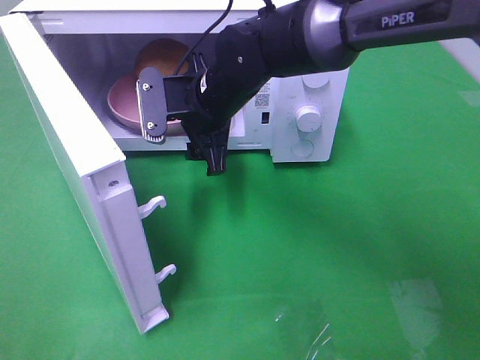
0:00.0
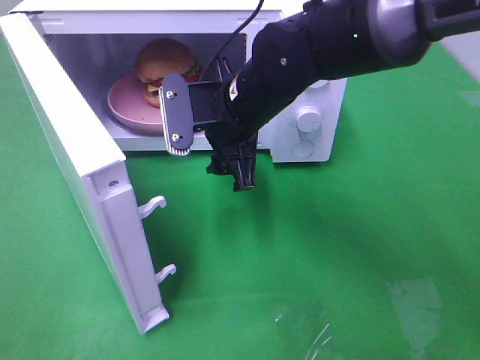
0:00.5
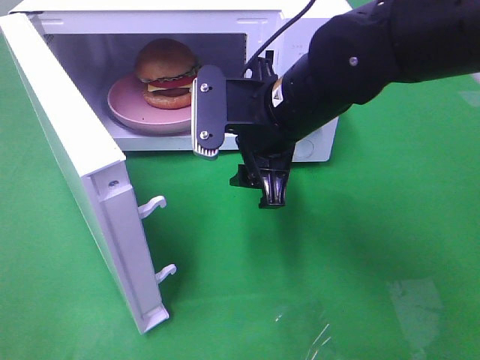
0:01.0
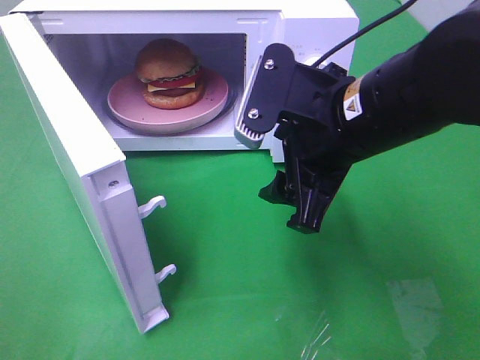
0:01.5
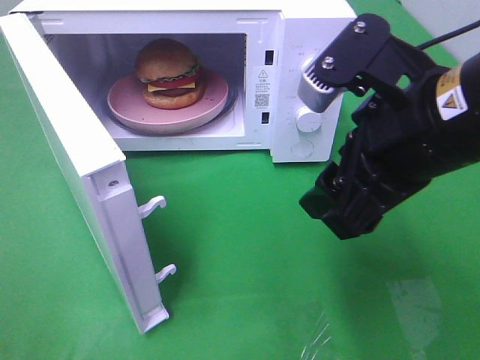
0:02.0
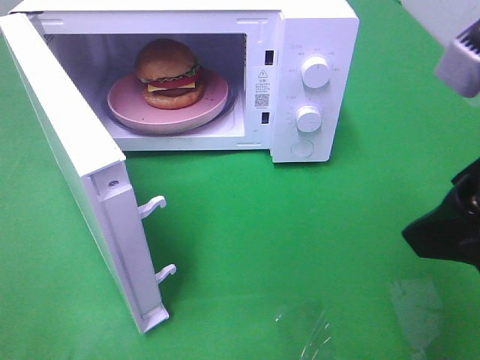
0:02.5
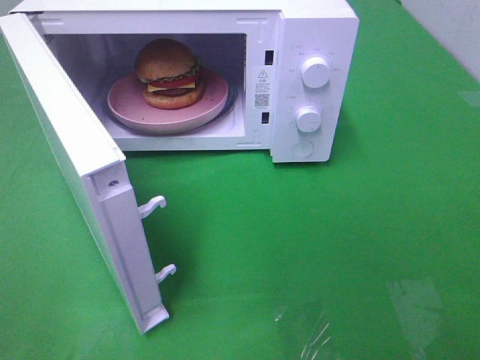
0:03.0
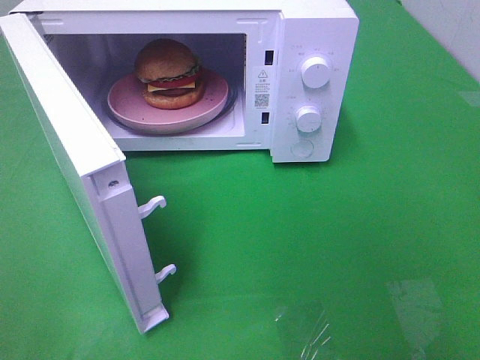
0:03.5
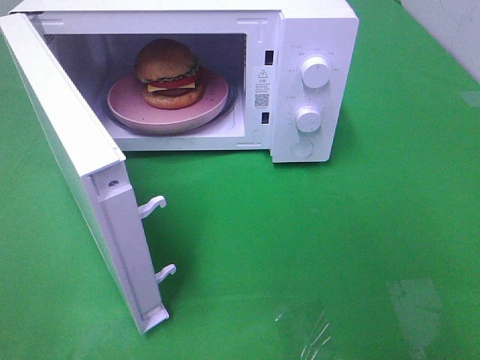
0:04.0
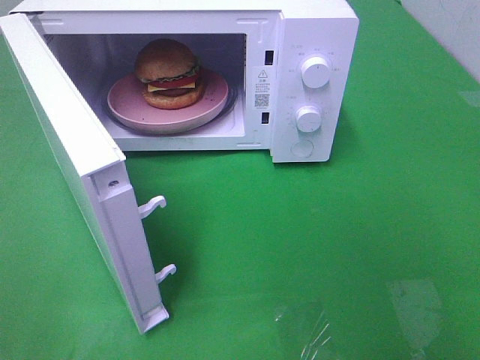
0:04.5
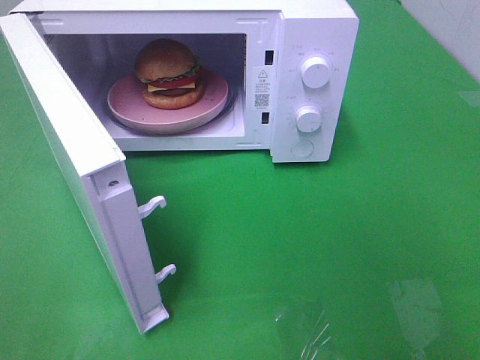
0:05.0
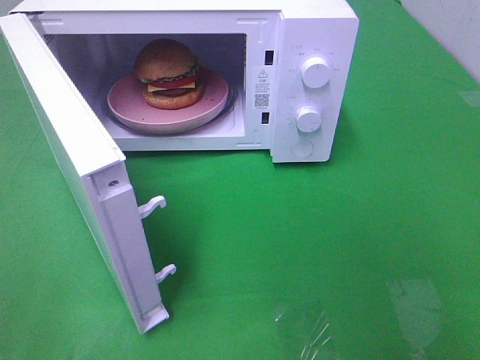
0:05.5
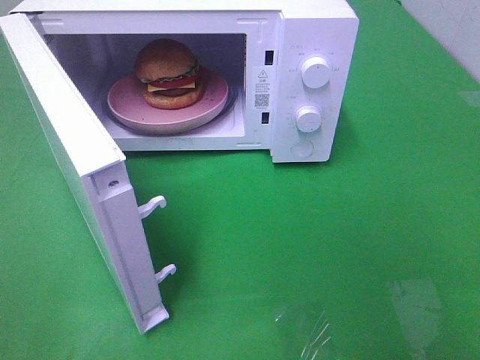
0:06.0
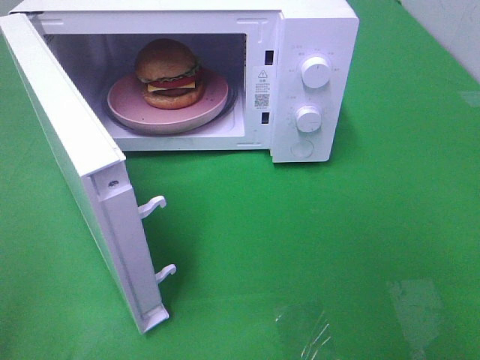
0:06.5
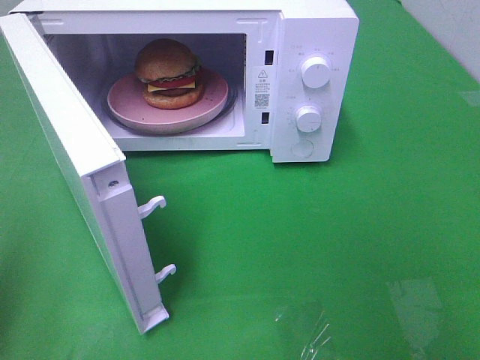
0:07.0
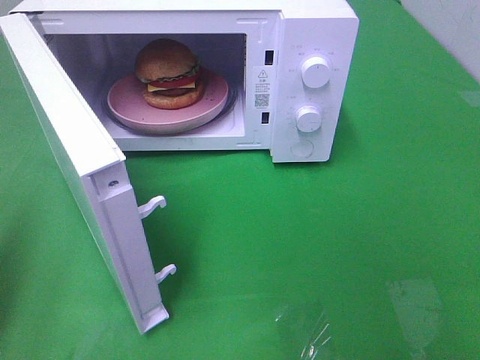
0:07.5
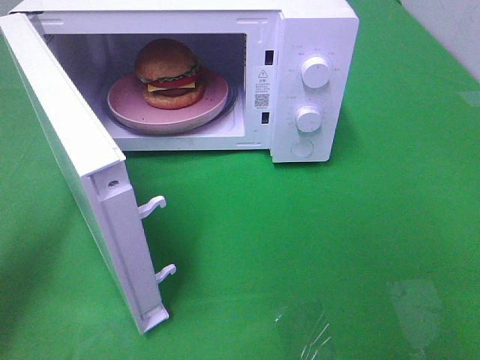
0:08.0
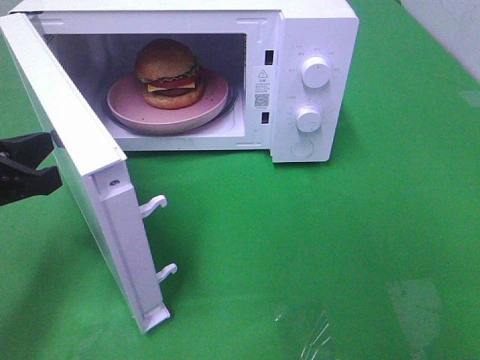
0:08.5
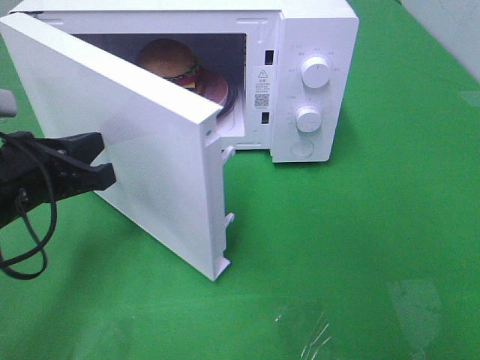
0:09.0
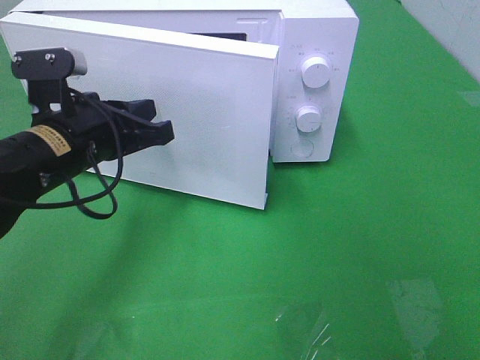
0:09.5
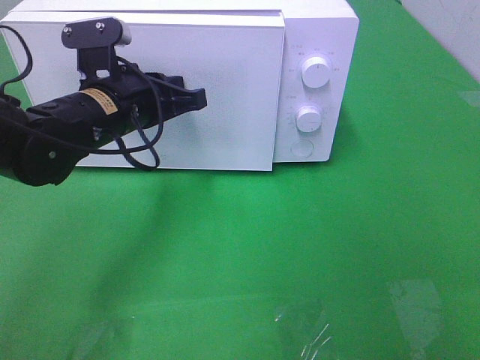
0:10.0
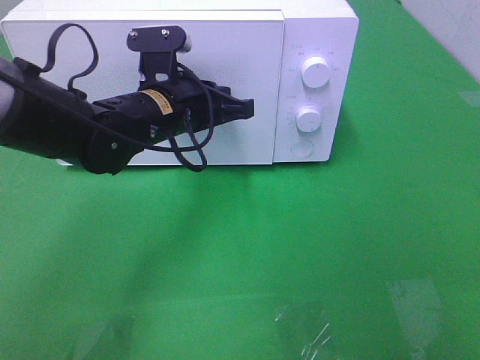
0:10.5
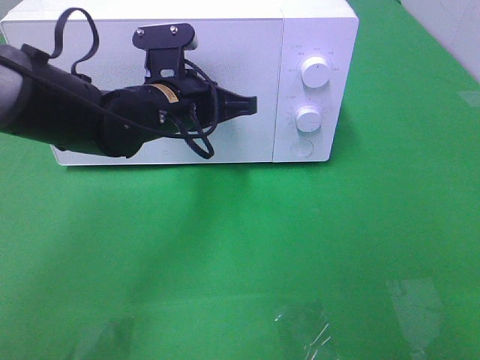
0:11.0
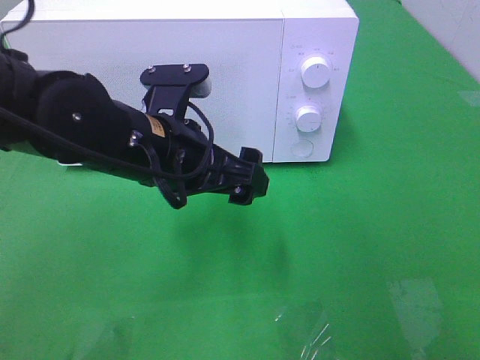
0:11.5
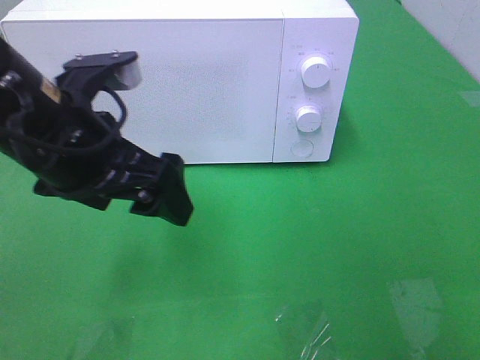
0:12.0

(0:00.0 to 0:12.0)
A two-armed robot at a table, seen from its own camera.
Task of the whole recording: Heat the burger.
Step, 0:00.0 - 0:11.0: Left hand: close the microwave door.
0:00.0 - 0:02.0: The right gripper travels backward, to the right and upward by roughly 25 cm.
0:02.0 - 0:04.0: The right gripper shifts approximately 25 cm backward and to the right.
0:04.0 - 0:06.0: The two grippers keep their place.
0:06.0 - 0:08.0: The left gripper is displaced forward and downward by roughly 25 cm, and closes.
0:08.0 - 0:10.0: The left gripper shifts about 20 cm to the right and forward.
0:10.0 - 0:12.0: The left gripper travels backward and upward by approximately 10 cm, and opens up.

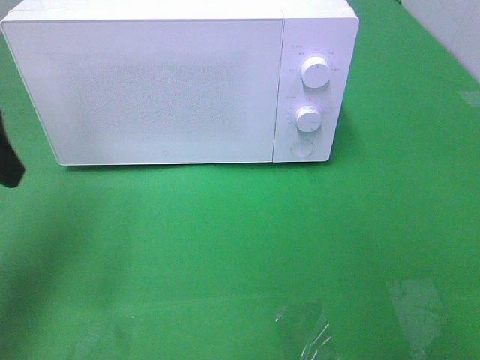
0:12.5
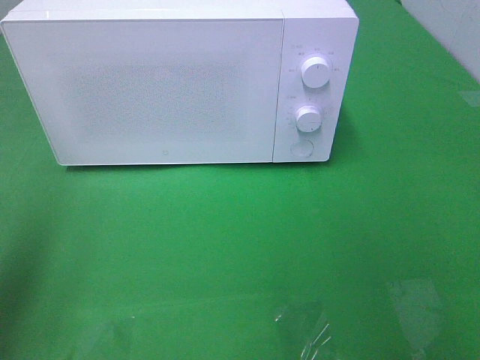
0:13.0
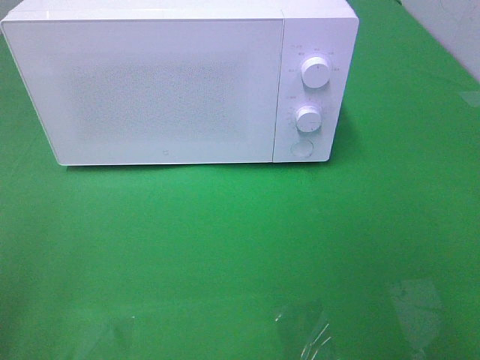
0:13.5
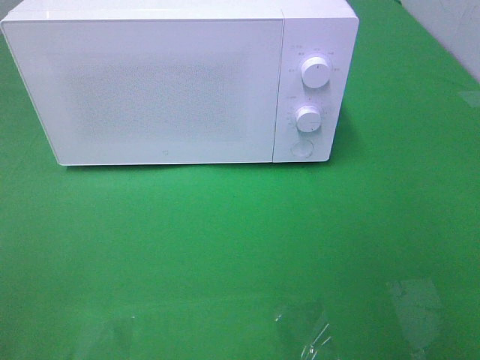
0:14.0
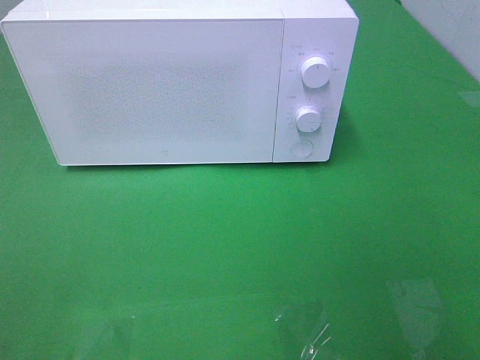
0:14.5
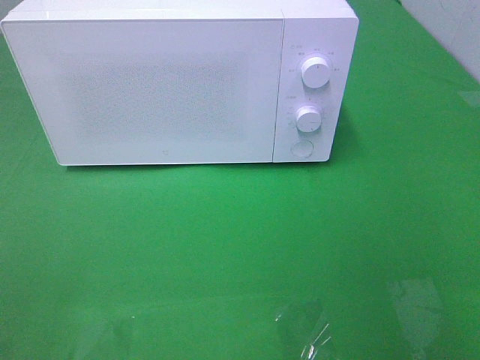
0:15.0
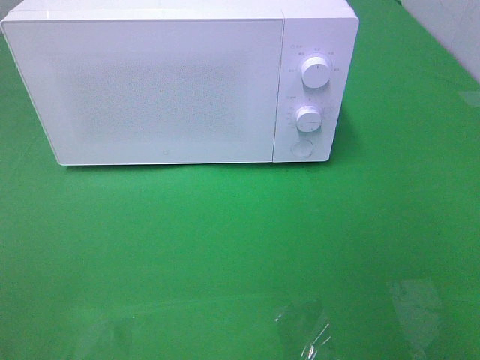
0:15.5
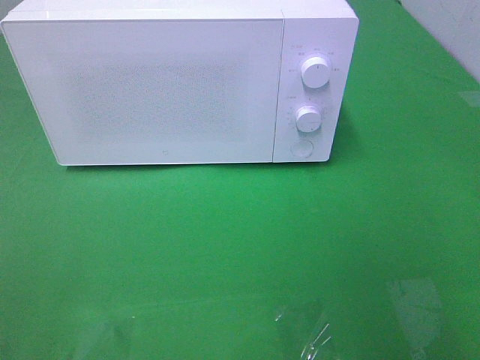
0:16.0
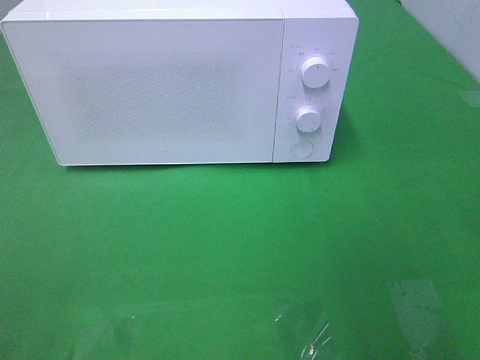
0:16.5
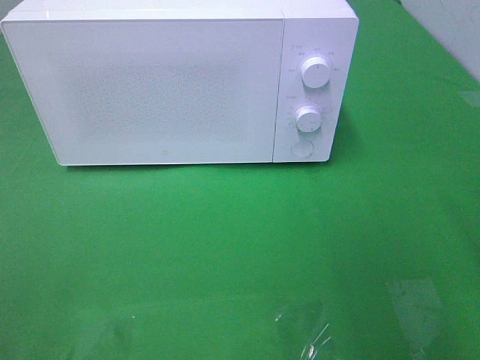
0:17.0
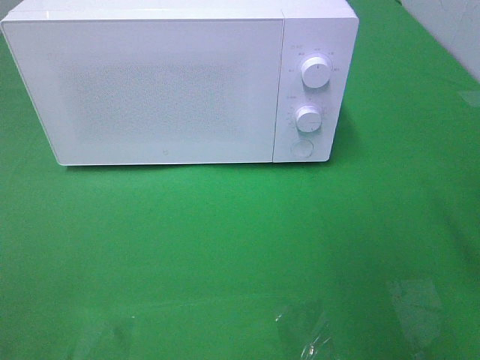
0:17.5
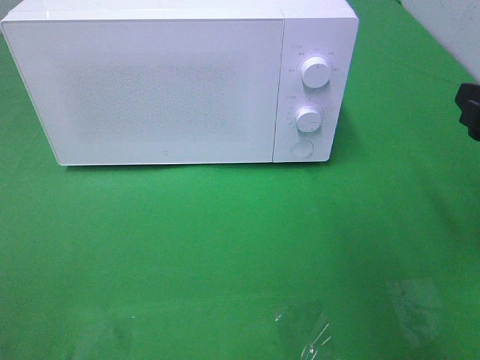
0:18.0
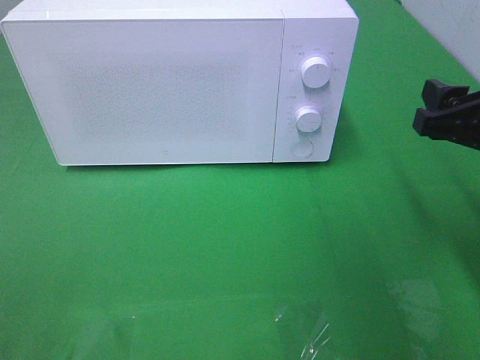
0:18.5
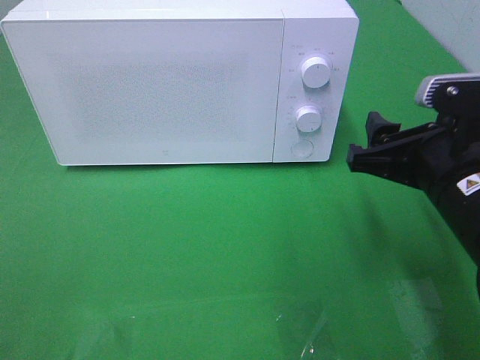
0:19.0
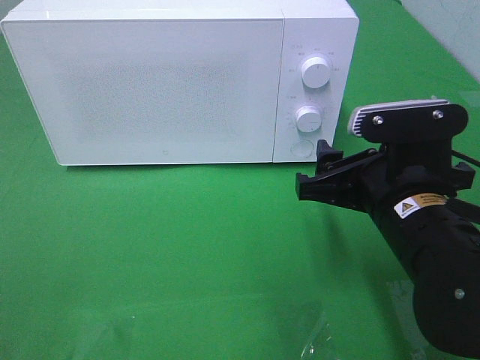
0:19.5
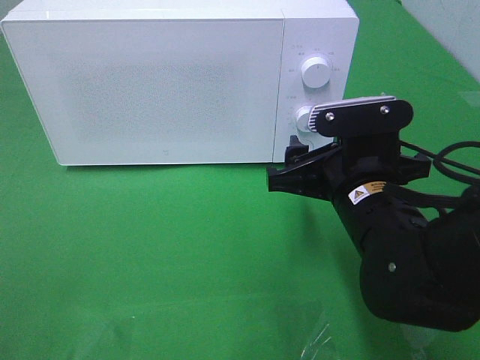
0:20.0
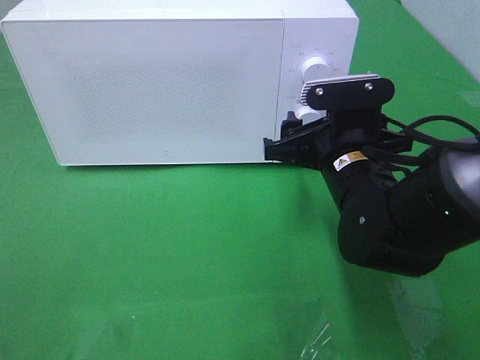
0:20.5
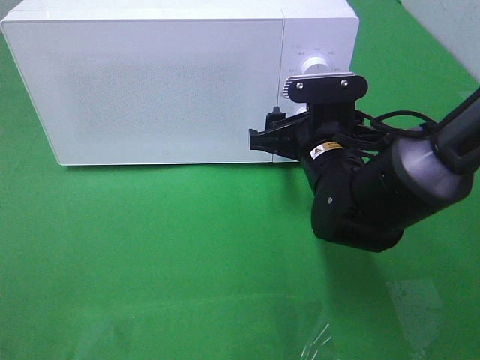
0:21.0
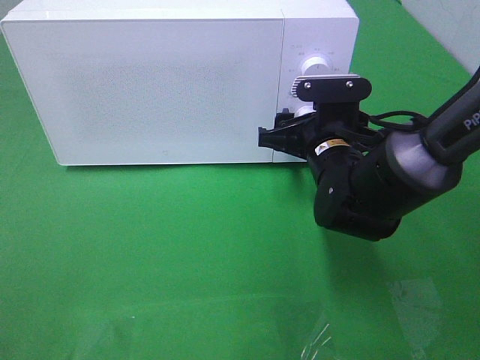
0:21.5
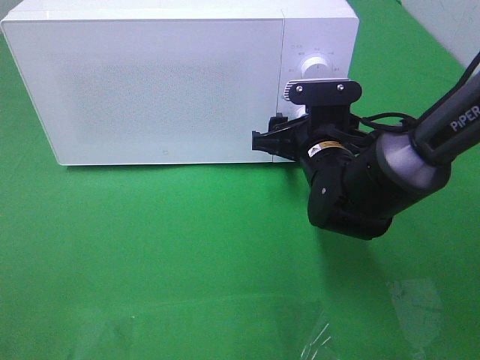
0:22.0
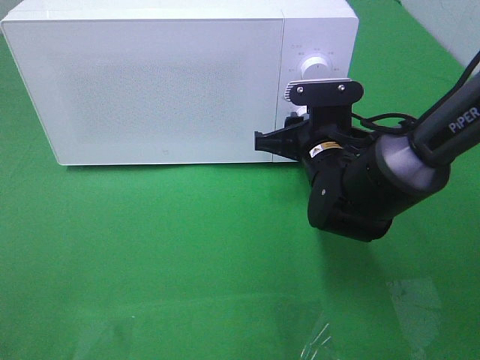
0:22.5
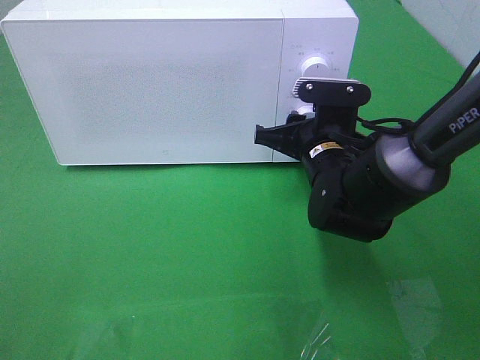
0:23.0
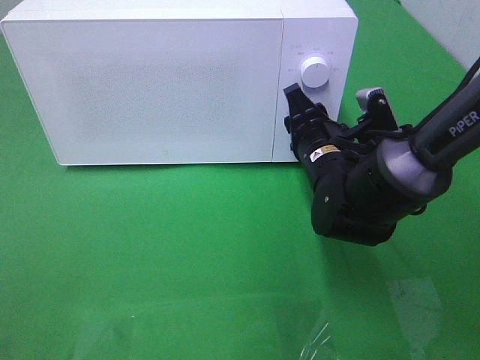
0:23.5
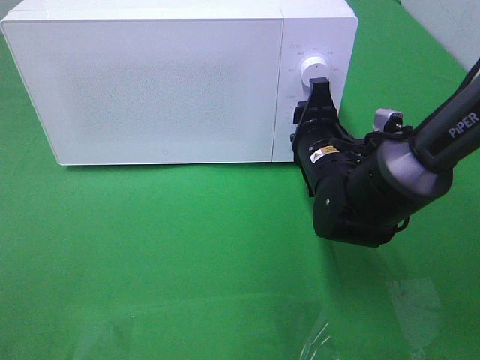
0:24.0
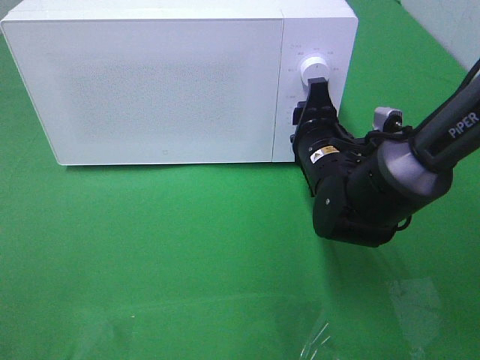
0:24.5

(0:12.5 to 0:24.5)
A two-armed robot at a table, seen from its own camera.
Task of the whole recording: Heat the burger.
0:12.5 - 0:14.5: The left gripper is displaced backward by some 25 cm.
0:16.5 - 0:18.5: The right gripper moves forward and downward, about 20 cm.
0:18.5 - 0:20.5: The right gripper is displaced to the left and downward by some 15 cm.
0:20.5 - 0:22.5: The right gripper is displaced forward by approximately 5 cm, and closes its fingers.

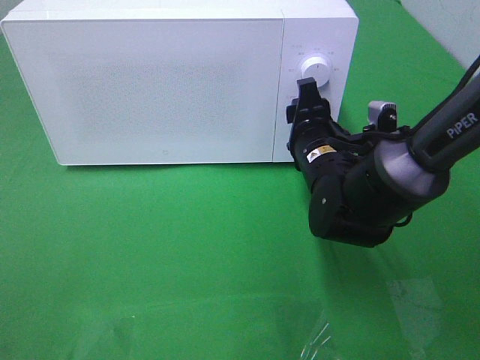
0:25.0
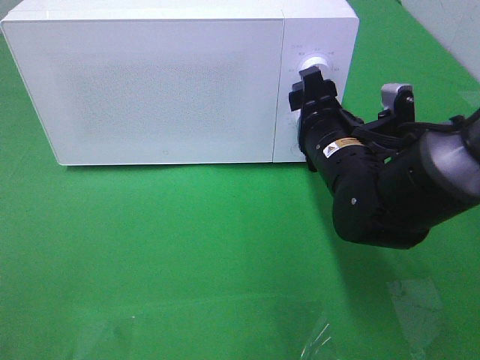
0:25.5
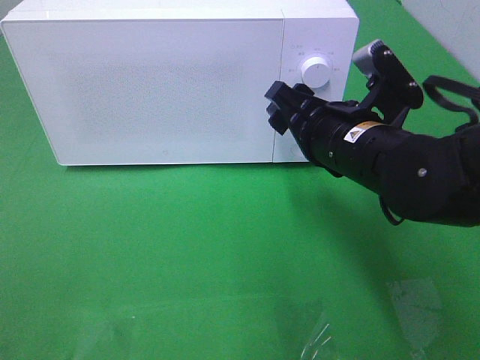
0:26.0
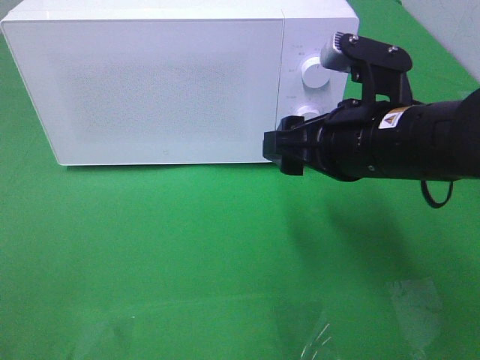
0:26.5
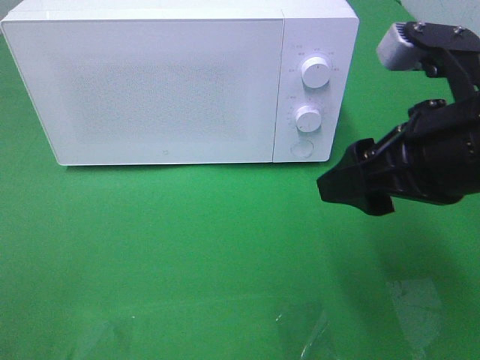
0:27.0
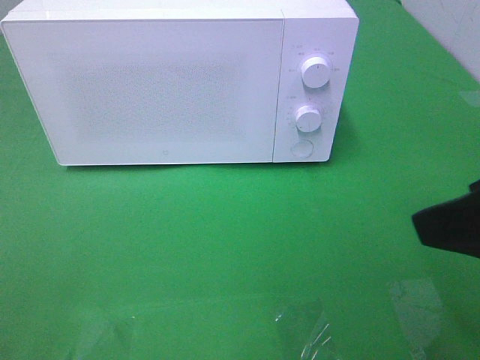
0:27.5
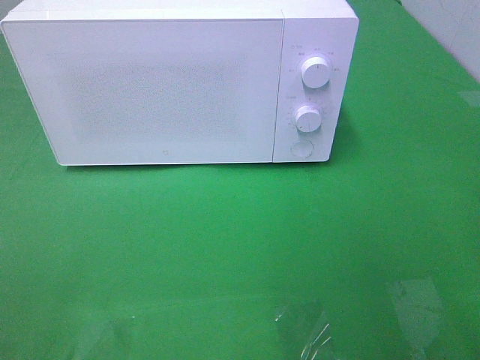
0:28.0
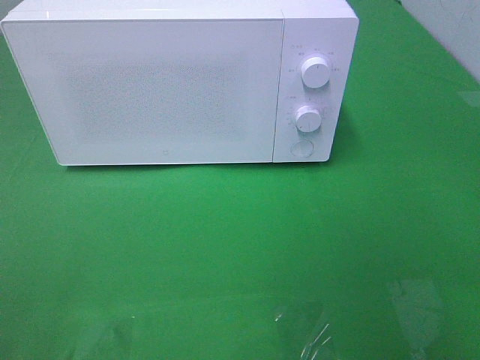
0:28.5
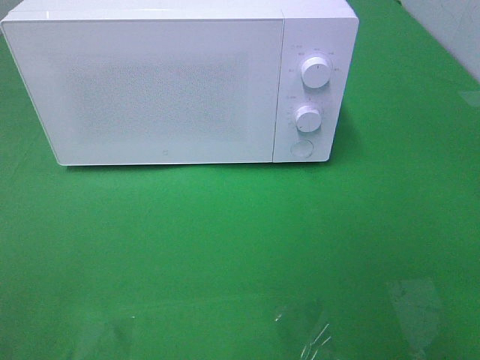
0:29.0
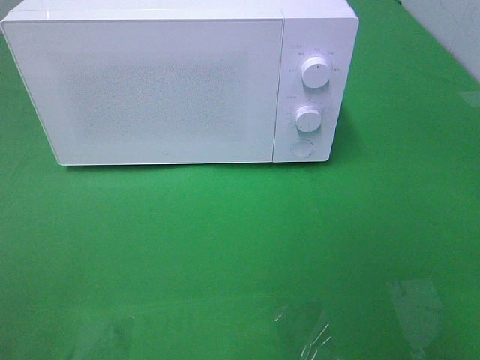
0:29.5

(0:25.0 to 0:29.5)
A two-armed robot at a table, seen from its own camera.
Task of the whole recording: Heat the burger.
0:25.0 - 0:27.0: The right gripper moves upward, backward and to the right, approximately 20 cm.
0:27.0 - 0:29.5: The right gripper heads backward and to the right, covering some 20 cm.
